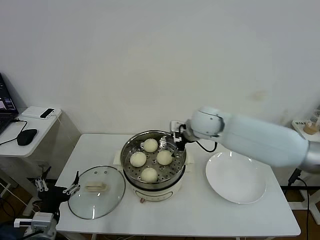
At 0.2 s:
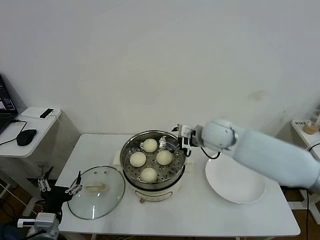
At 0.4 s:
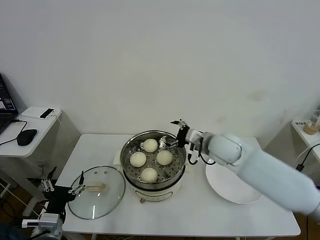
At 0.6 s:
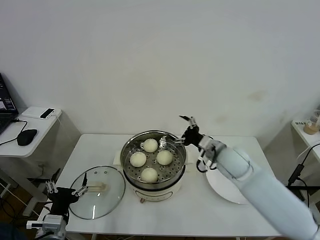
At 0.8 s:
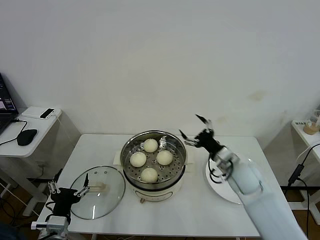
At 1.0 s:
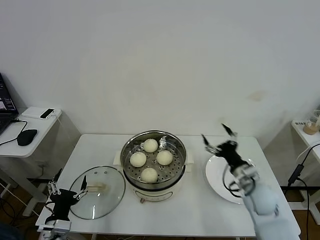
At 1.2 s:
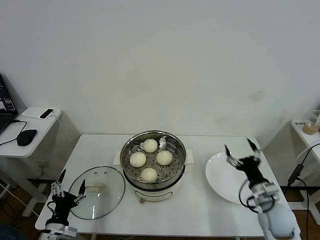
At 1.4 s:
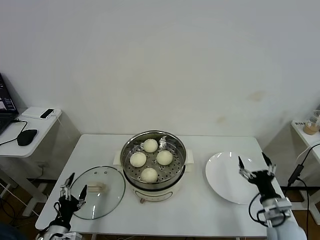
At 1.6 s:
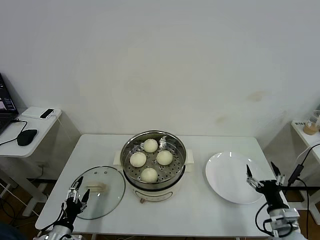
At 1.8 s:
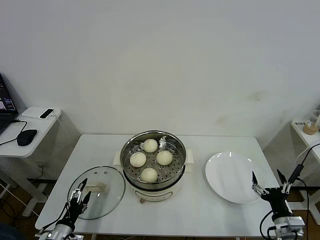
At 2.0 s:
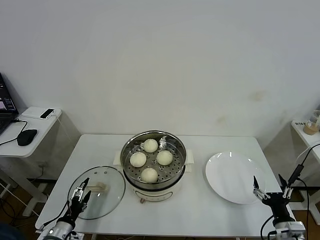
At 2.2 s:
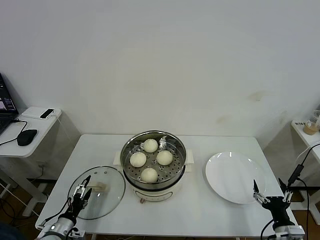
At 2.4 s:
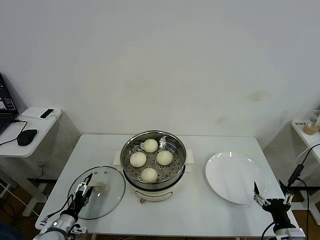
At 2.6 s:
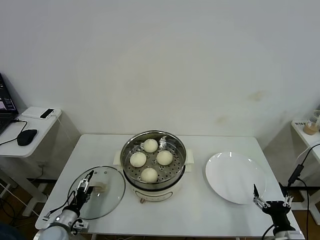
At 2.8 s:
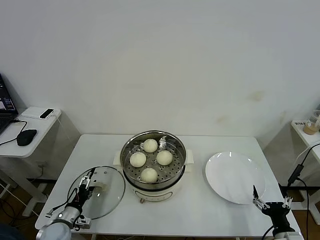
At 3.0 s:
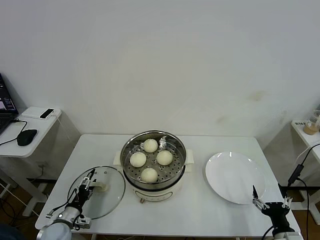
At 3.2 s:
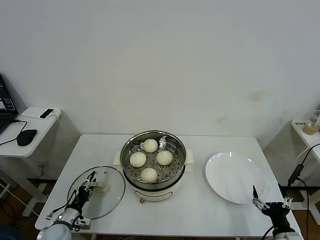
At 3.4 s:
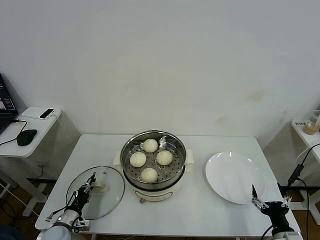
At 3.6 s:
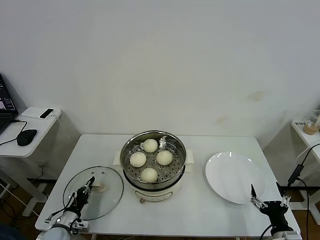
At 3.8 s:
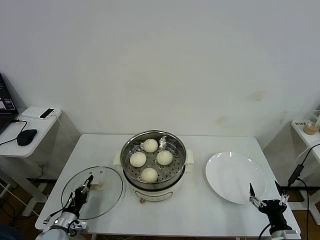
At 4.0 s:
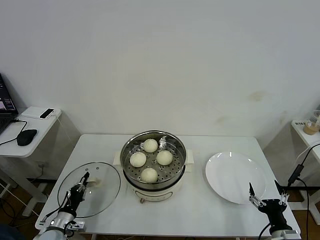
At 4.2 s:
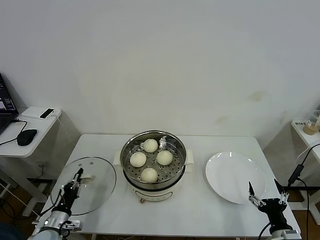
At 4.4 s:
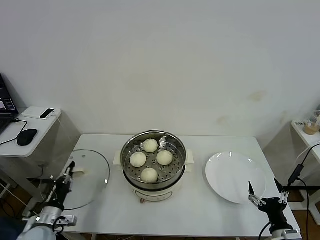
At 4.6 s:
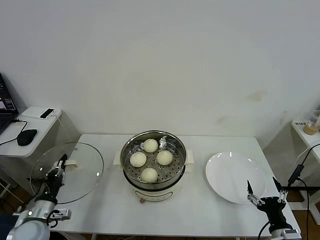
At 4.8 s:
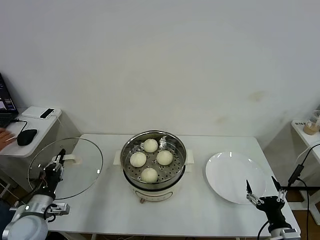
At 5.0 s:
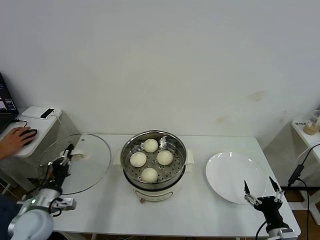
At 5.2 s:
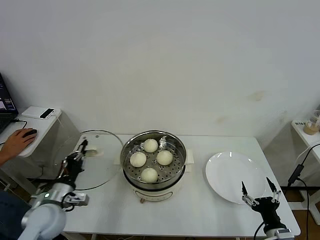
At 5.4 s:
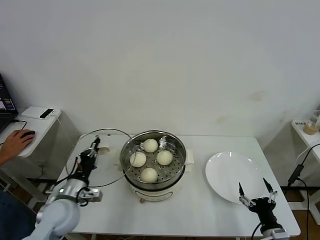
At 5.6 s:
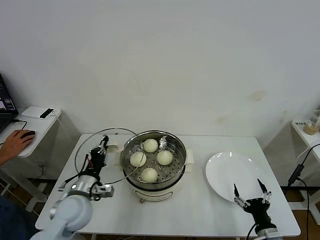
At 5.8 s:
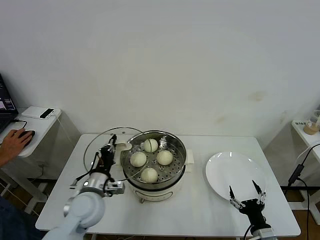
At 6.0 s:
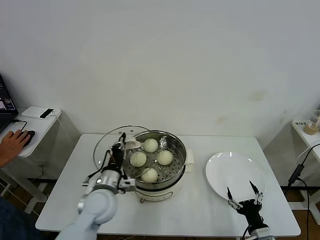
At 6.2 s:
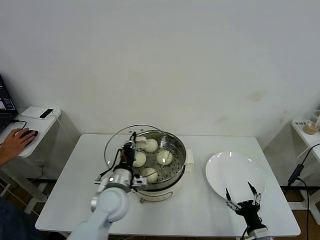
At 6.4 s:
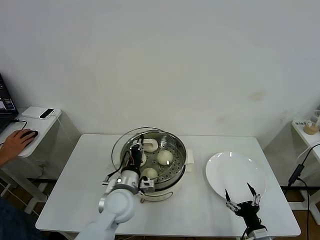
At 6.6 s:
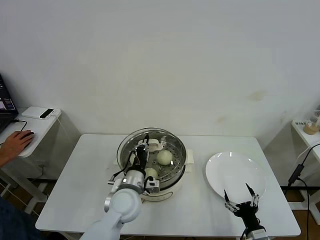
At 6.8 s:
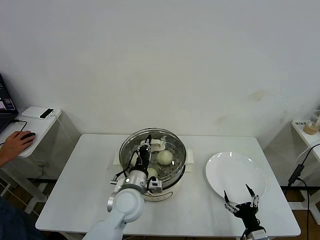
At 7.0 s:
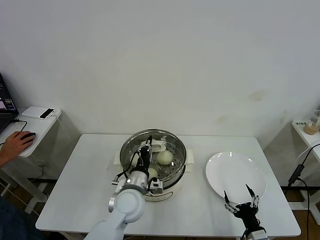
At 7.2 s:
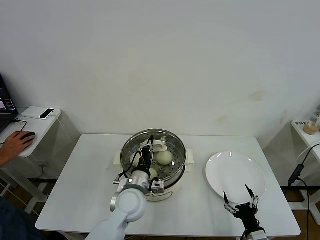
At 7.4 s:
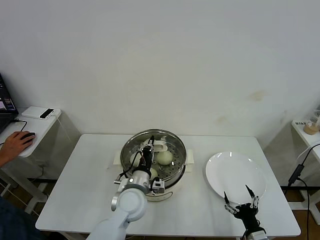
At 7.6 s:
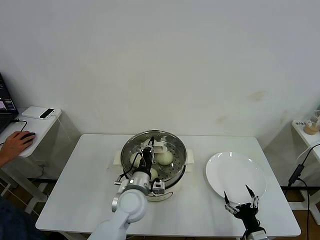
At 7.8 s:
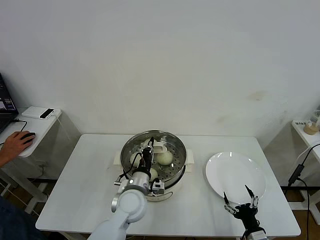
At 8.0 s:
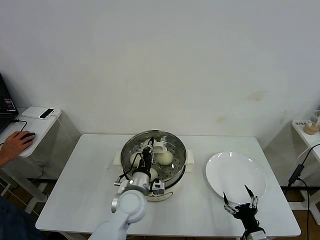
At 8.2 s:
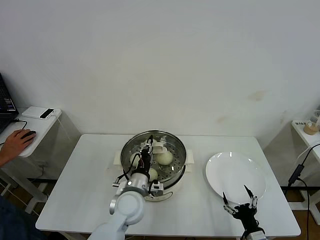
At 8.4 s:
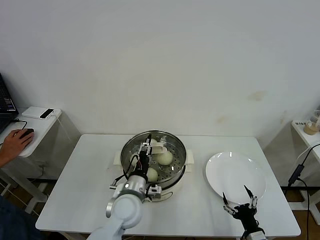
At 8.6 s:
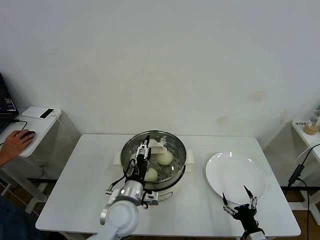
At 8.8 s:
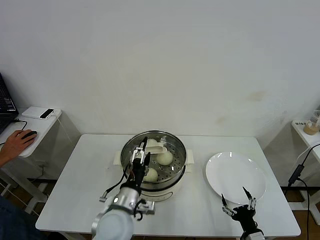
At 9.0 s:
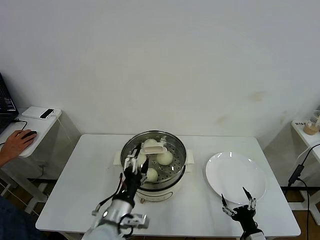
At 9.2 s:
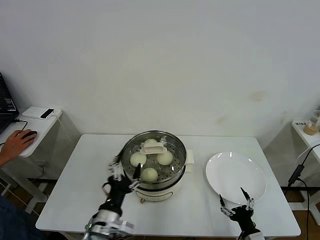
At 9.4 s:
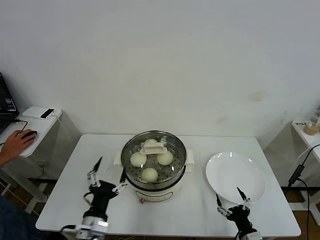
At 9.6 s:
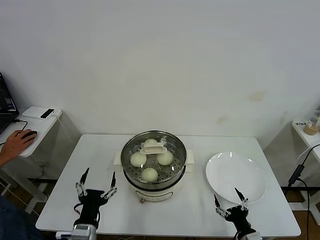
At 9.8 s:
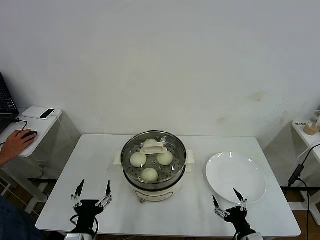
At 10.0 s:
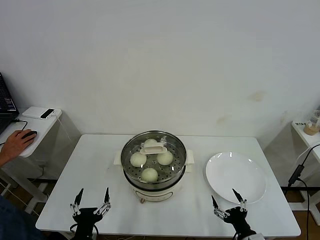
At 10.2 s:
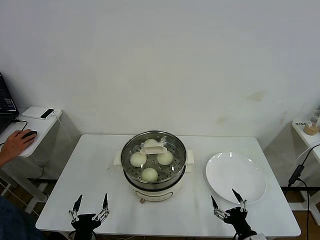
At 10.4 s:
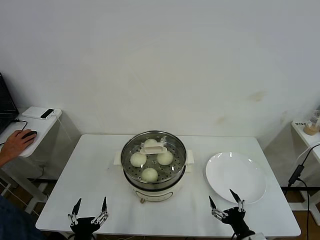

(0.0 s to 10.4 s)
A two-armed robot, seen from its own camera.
Task of the whole recording: take steamed baozi put them in steamer then cover it.
Step, 0.0 s - 3.8 s: Grasp the pot lid with left gripper.
Step, 4.0 s - 8.4 s: Place the pot lid on the steamer with left gripper.
0.0 s - 1.4 s: The right gripper shifts some 40 cm backward, to the right and downward, while the left gripper goes some 10 cm downward.
1.4 s - 3.0 s: The left gripper is displaced forward and downward by approximately 10 cm, while the right gripper shifts some 10 cm backward.
3.0 s - 4.4 s: The left gripper travels upward by roughly 5 cm, and closes up.
4.4 s - 6.0 s: The right gripper changes place by about 5 cm; the left gripper heads to the right and upward, covering some 25 cm.
6.0 s - 7.4 s: The left gripper is displaced to the right by some 10 cm.
7.4 s - 9.0 s: The left gripper heads backward, covering approximately 10 cm, and opens.
9.0 s - 10.4 s: The left gripper shifts some 20 cm backward, to the left and downward.
